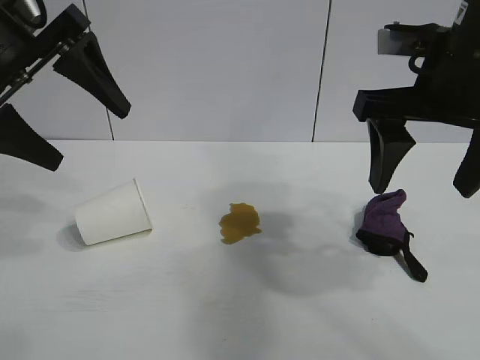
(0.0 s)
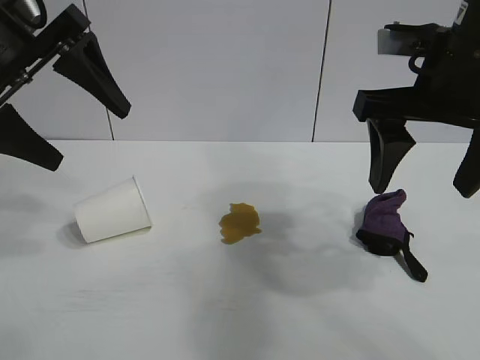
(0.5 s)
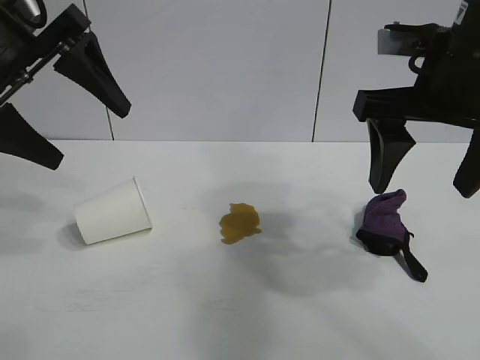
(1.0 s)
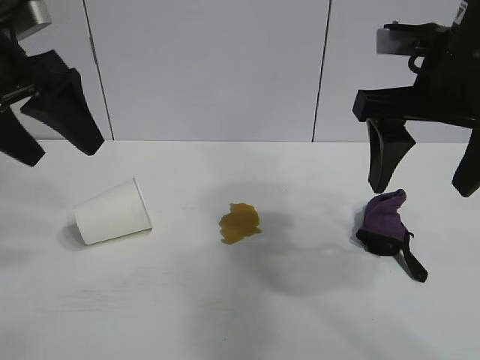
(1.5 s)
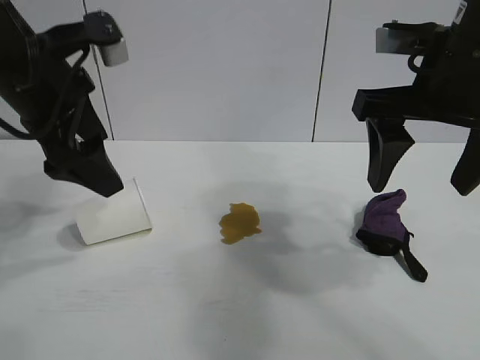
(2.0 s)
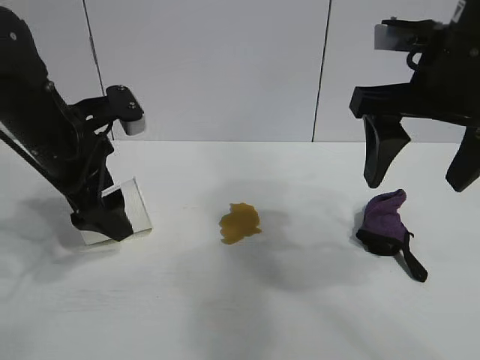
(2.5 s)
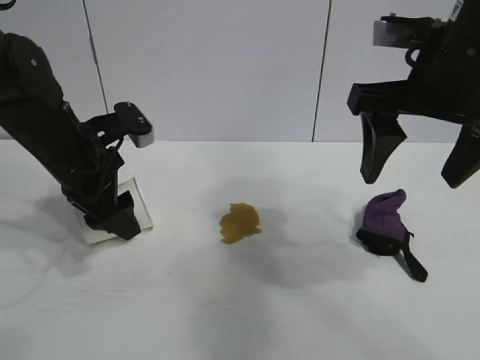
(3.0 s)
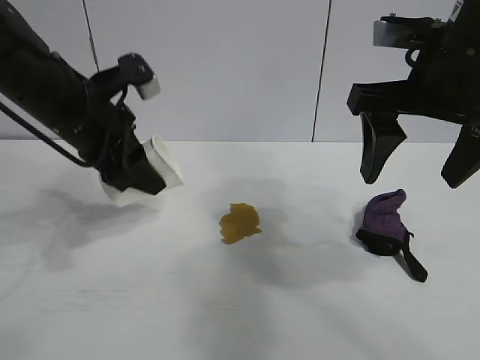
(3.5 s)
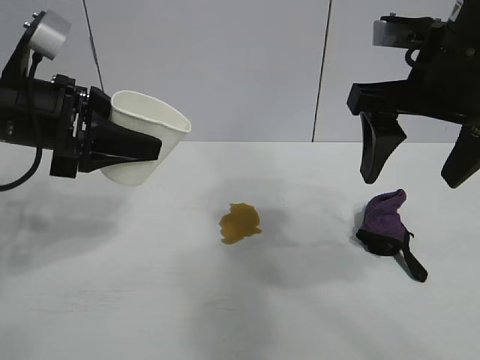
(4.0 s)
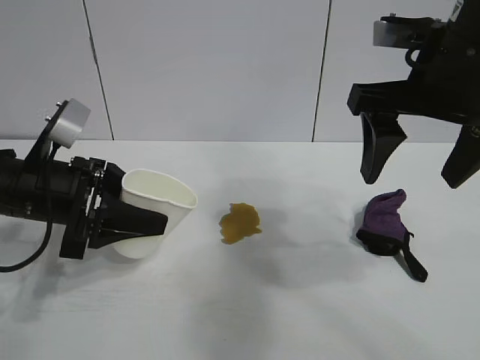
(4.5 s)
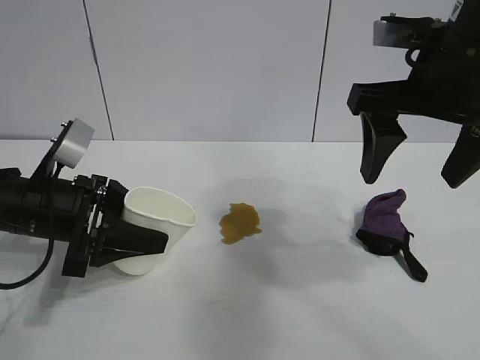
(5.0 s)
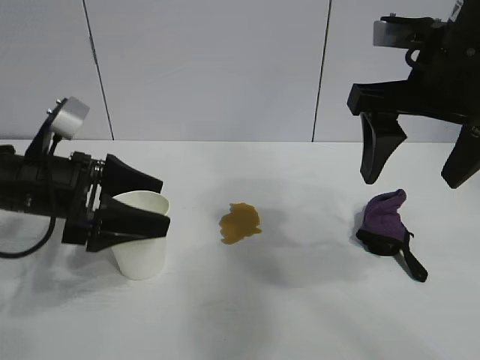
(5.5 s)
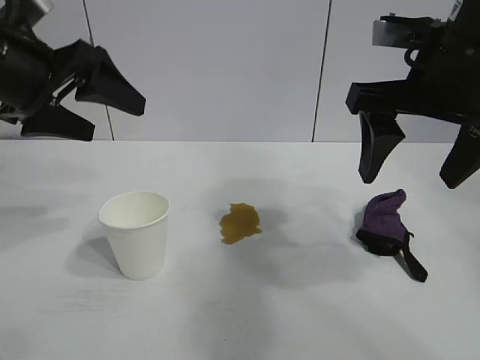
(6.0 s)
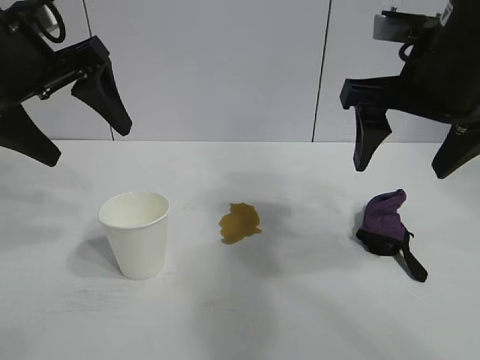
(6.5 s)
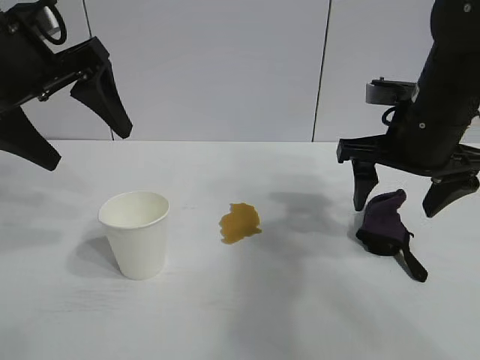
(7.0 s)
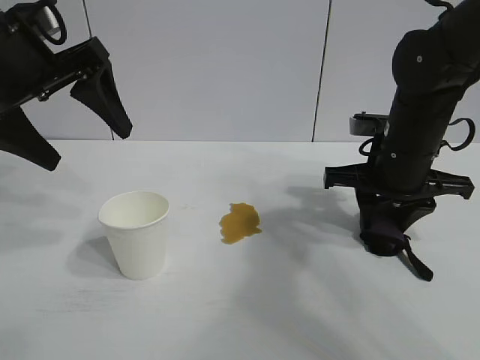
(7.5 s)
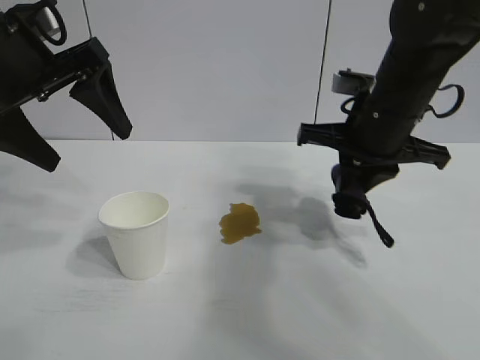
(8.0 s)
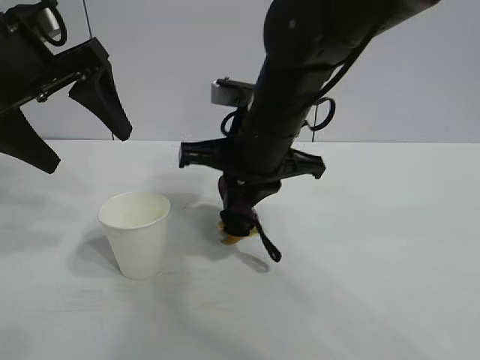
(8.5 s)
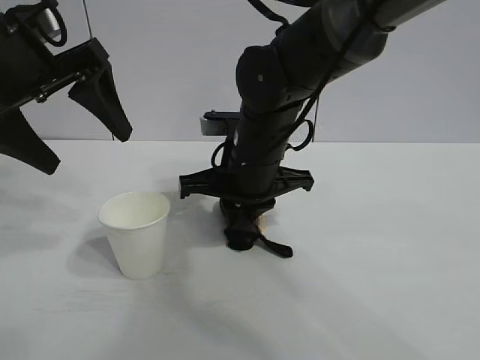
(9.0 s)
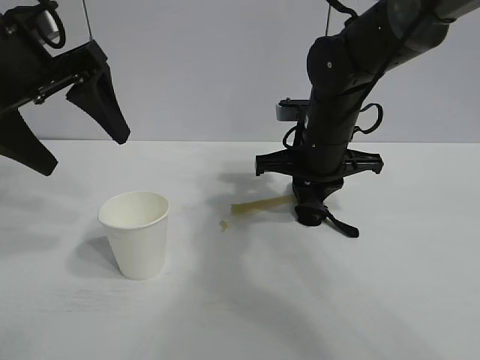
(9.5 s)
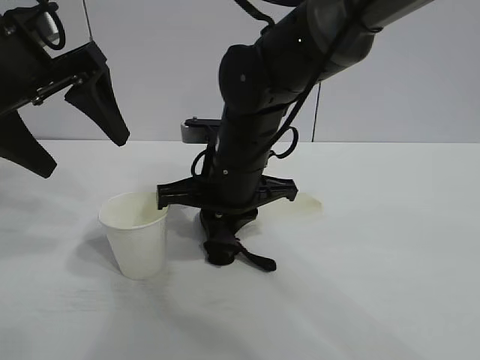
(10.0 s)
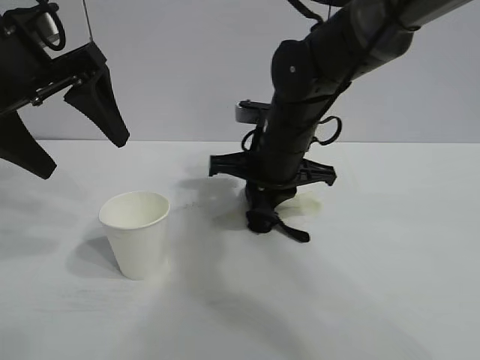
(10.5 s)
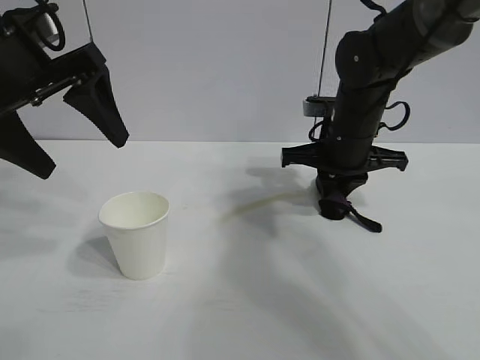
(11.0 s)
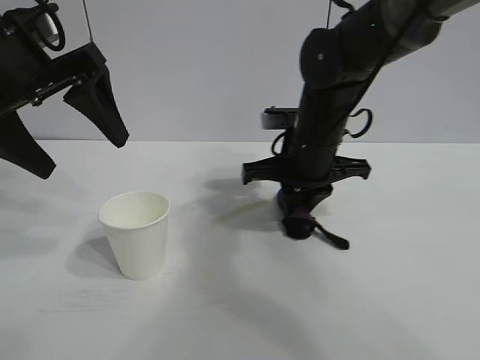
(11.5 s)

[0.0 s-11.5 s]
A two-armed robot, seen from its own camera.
Task of the whole recording: the left gripper pick up the fallen cup and place it upright, the right gripper grasp the black rag and wipe the stain on the table, the right gripper put the black rag back in its original position.
Step, 1.0 to 3.0 s: Grasp the paper cup with left gripper.
Step, 3.5 to 5.0 s: Stand the paper cup upright with left gripper.
Step, 5.5 to 7.5 s: Grasp the rag with right gripper.
